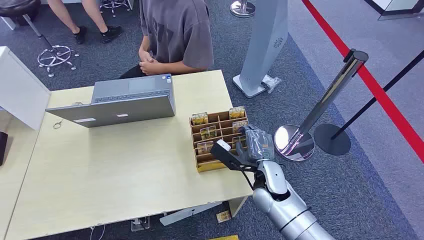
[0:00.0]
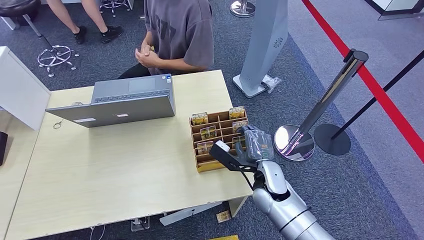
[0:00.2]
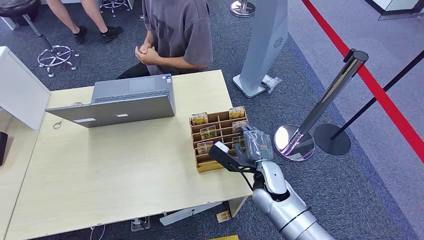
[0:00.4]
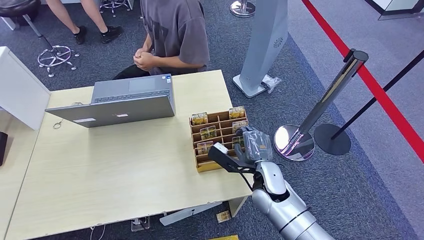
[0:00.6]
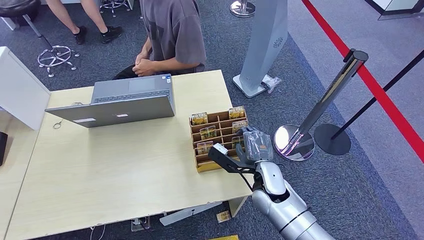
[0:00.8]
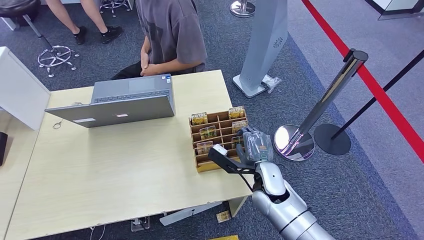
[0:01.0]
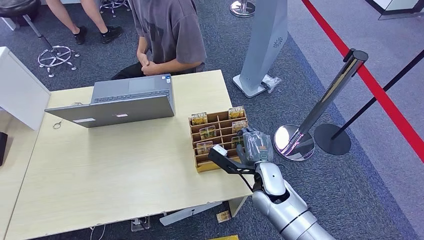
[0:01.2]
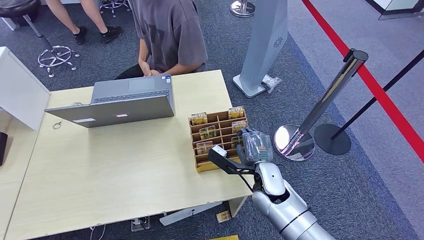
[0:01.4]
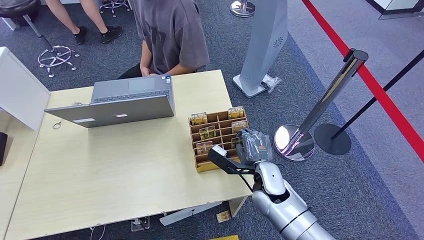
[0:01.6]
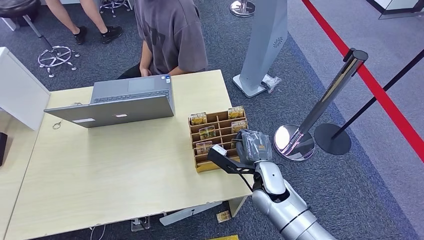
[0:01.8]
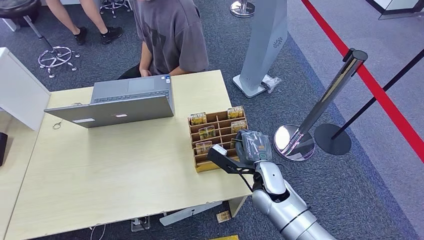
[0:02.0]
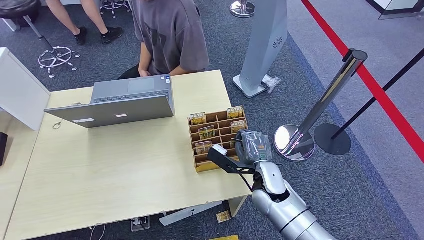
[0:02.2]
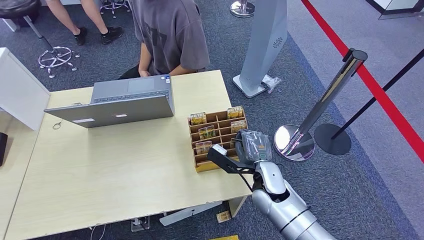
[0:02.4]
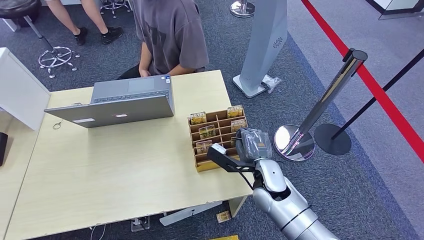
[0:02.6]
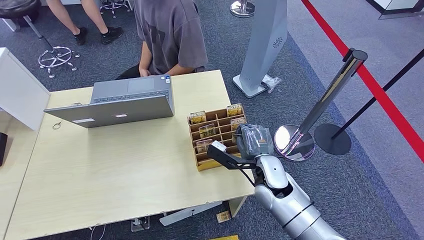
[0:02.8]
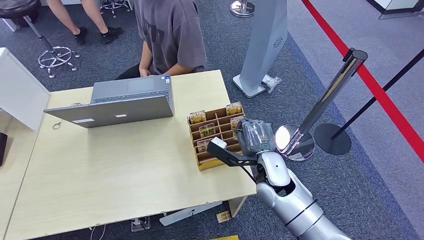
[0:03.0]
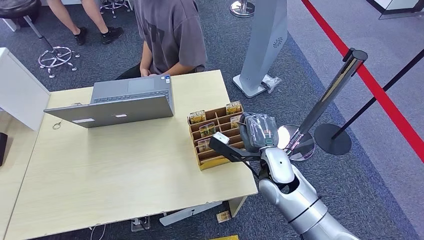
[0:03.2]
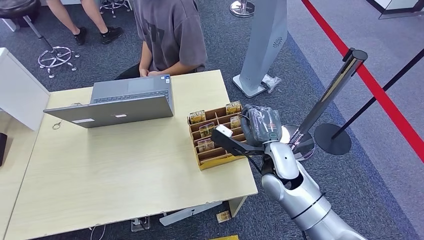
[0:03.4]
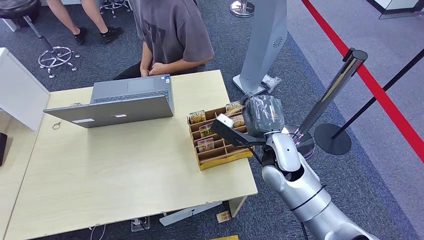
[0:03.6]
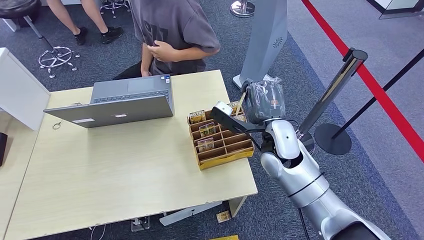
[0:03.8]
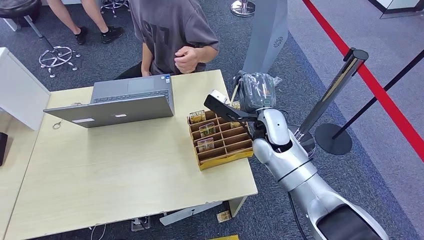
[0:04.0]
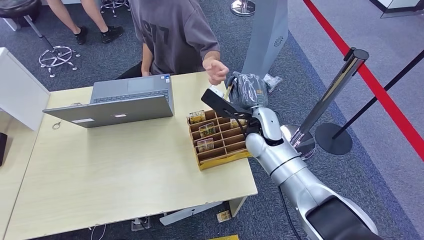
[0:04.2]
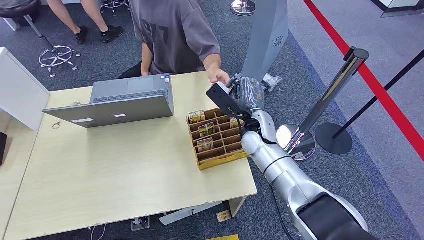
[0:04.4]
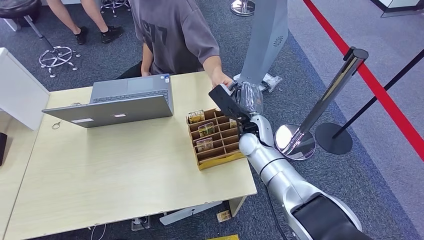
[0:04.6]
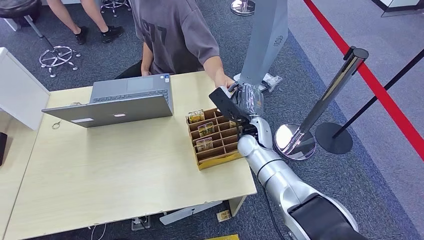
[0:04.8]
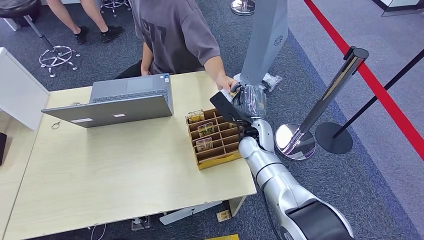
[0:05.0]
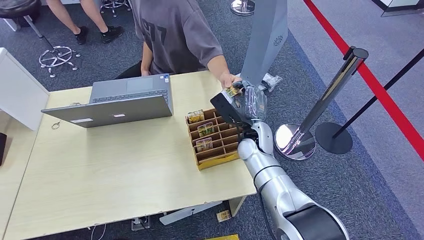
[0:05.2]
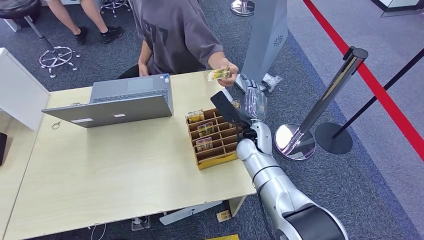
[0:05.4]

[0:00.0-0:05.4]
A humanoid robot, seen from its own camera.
Step, 0:00.0 to 0:02.2: Pick up the room card from the card holder.
Step, 0:04.4 to 0:05.4: Hand the room card to the target.
0:01.4 to 0:02.8: The hands make only small movements.
0:02.8 to 0:04.0: The right hand shifts approximately 10 cm upward and forward.
0:04.0 to 0:05.4: The right hand goes roughly 5 cm downward.

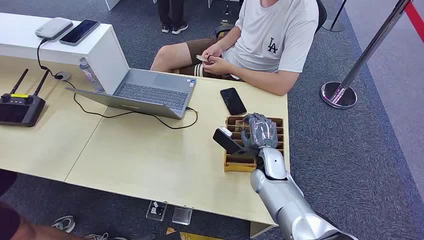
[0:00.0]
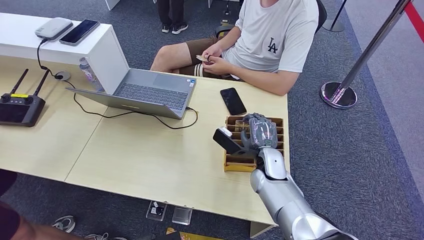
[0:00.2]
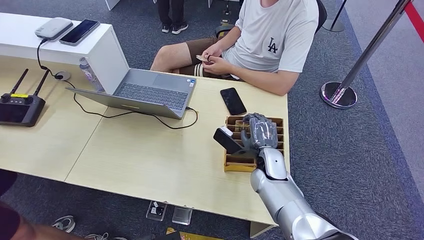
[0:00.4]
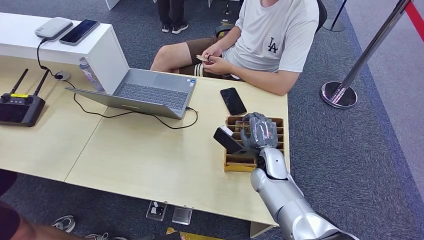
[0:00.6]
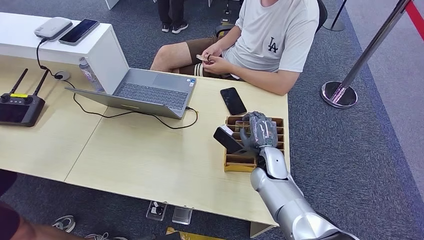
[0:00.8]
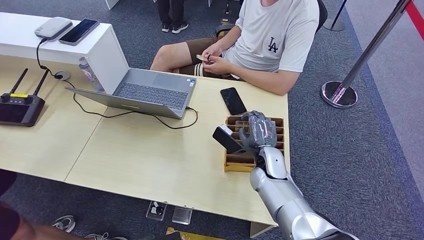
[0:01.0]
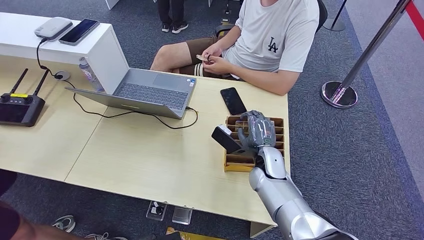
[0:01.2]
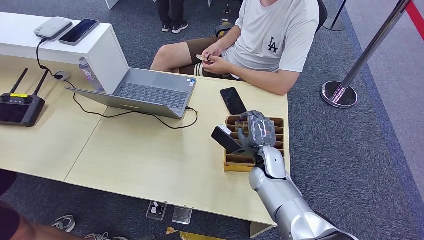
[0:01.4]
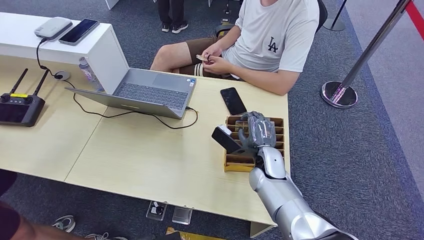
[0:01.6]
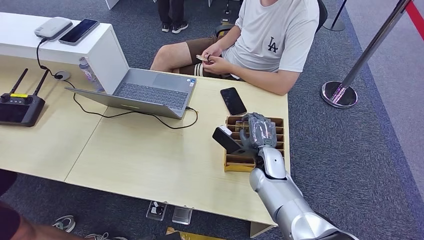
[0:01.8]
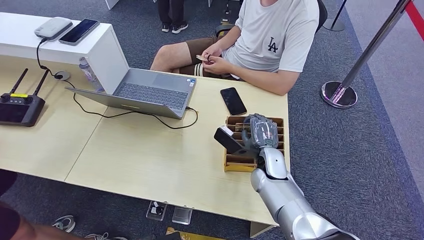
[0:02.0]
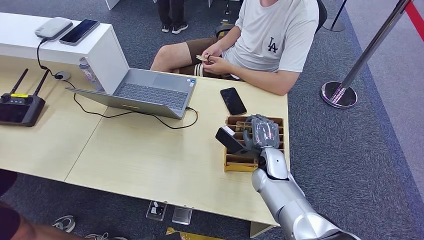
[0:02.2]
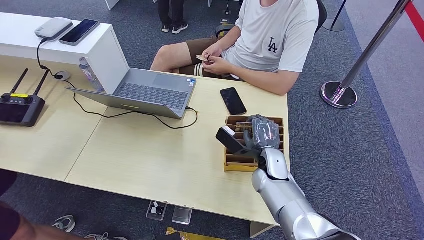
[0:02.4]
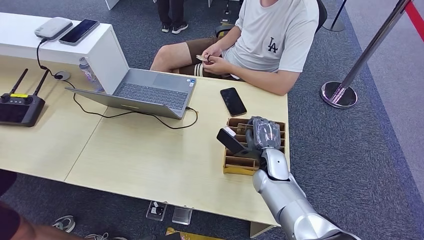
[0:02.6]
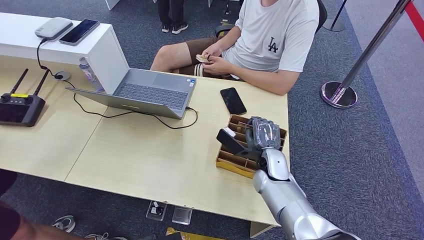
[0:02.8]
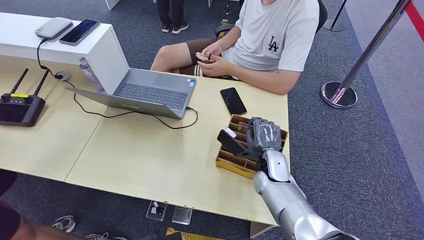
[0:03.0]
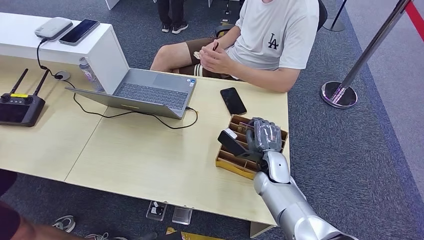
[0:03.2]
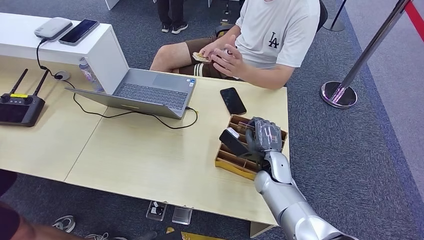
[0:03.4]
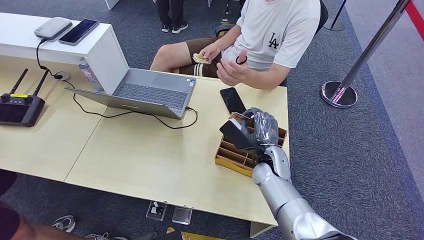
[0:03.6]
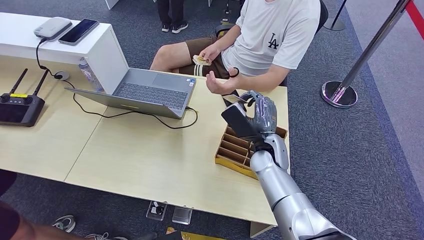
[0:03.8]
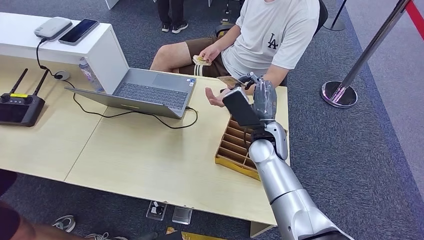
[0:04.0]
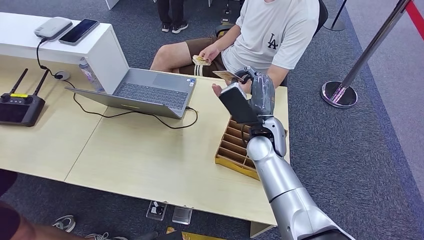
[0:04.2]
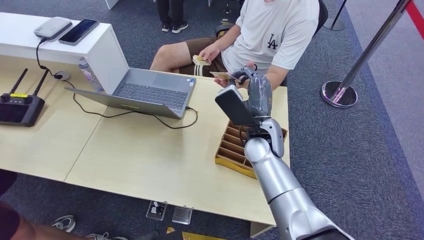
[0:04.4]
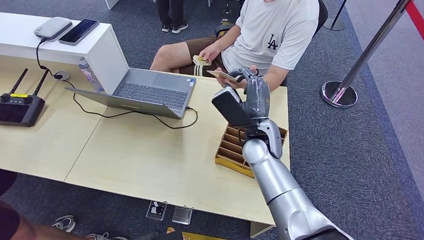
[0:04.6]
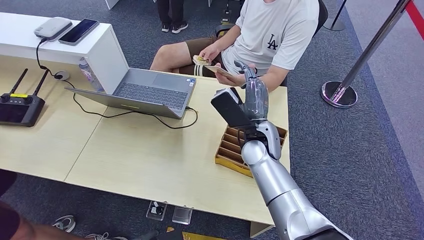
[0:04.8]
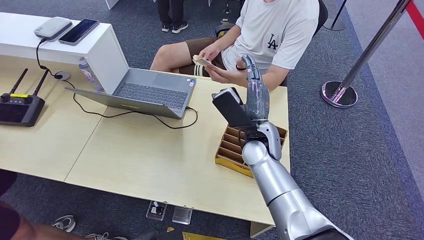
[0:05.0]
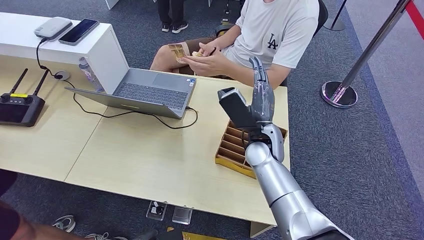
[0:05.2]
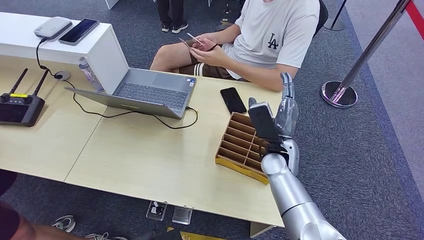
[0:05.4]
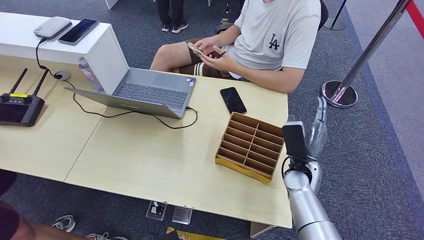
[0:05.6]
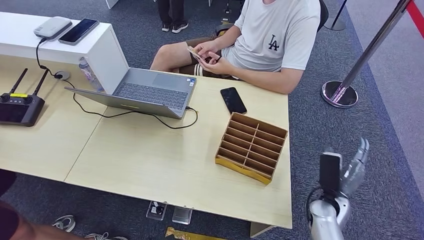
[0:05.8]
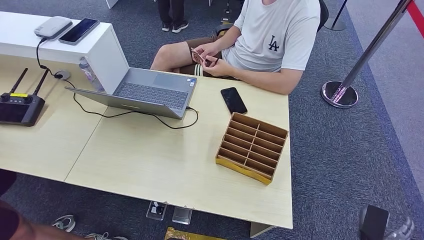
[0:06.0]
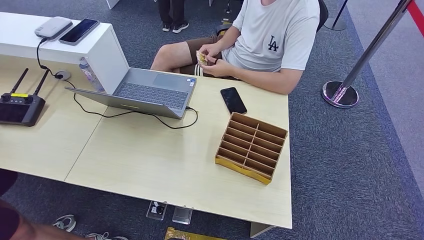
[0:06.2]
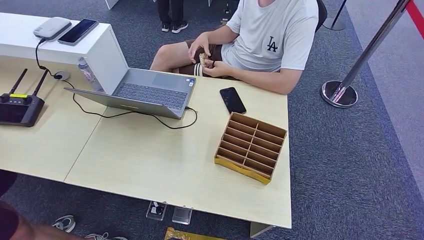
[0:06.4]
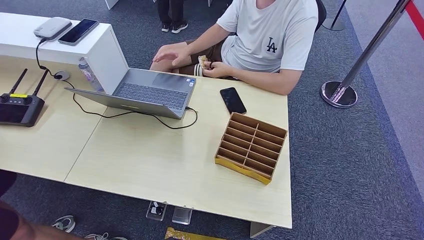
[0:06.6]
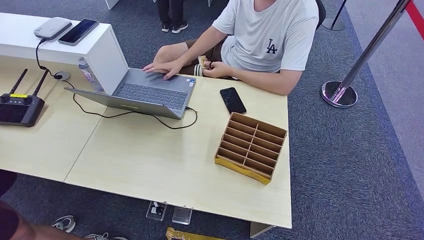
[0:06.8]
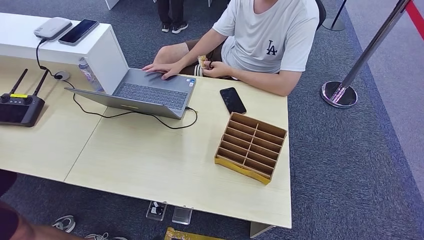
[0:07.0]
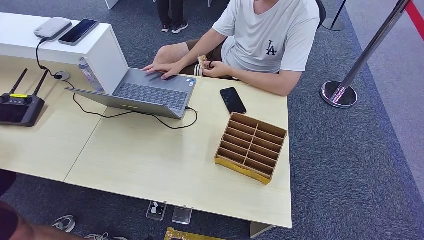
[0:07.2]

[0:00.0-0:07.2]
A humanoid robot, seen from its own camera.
Step, 0:00.0 to 0:04.0: Pick up the room card from the card holder.
Step, 0:04.2 to 0:07.2: Hand the room card to the target.
0:01.4 to 0:02.8: There are only small adjustments of the hands.
0:02.8 to 0:04.4: The right hand heads upward, covering roughly 10 cm.
0:04.4 to 0:05.8: The right hand travels to the right and downward by roughly 25 cm.
0:05.8 to 0:07.2: The right hand travels backward and downward by approximately 35 cm. Meanwhile the left hand changes place by some 5 cm.
